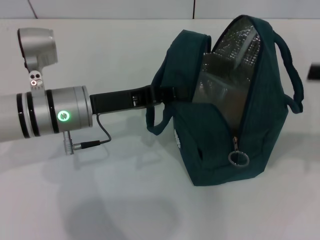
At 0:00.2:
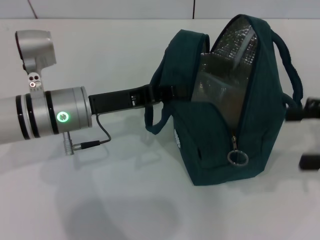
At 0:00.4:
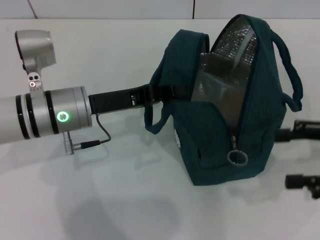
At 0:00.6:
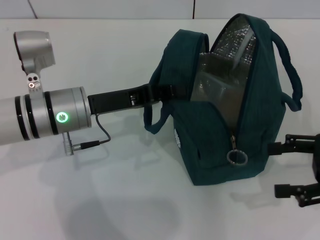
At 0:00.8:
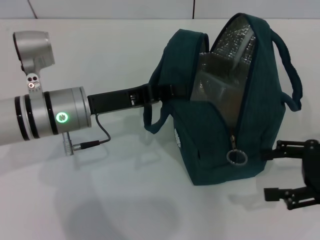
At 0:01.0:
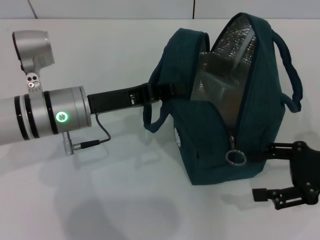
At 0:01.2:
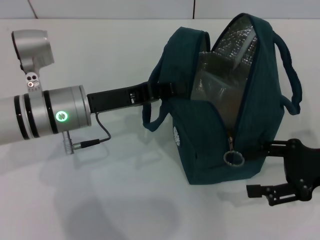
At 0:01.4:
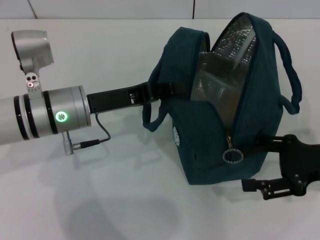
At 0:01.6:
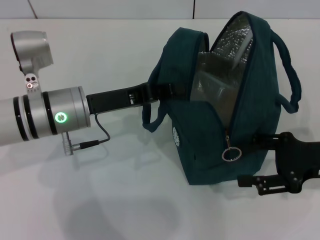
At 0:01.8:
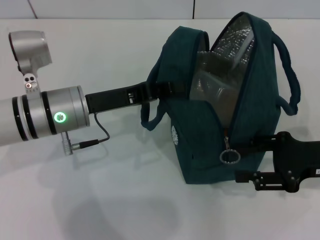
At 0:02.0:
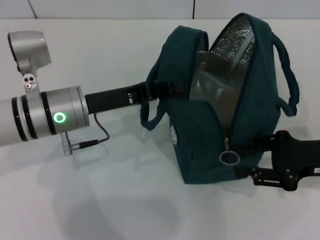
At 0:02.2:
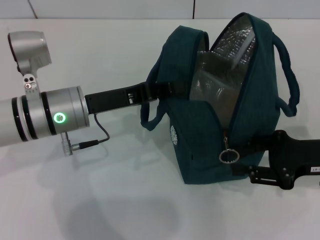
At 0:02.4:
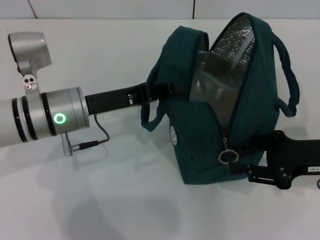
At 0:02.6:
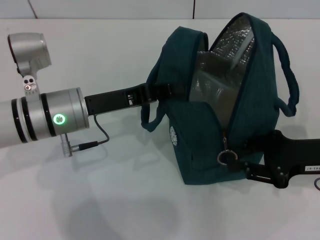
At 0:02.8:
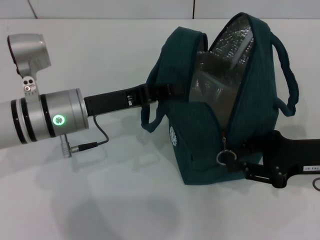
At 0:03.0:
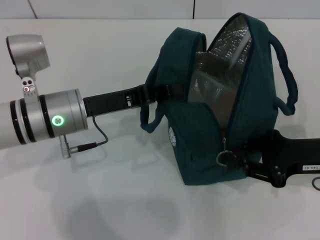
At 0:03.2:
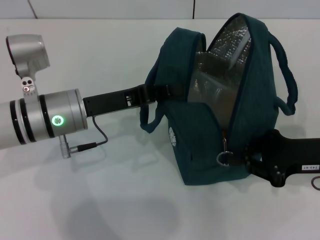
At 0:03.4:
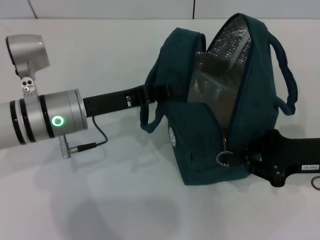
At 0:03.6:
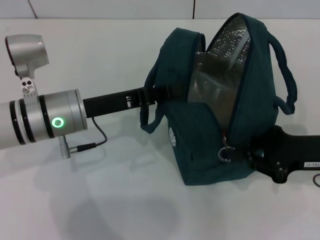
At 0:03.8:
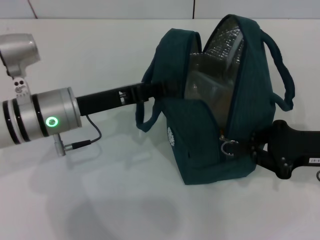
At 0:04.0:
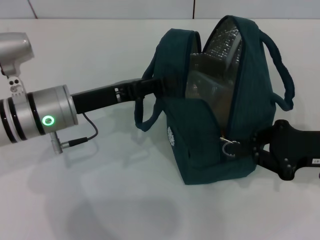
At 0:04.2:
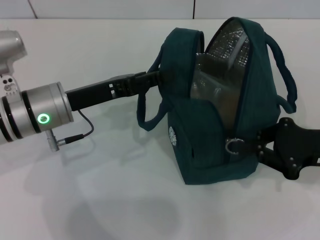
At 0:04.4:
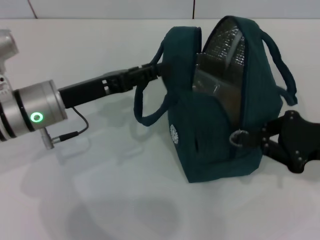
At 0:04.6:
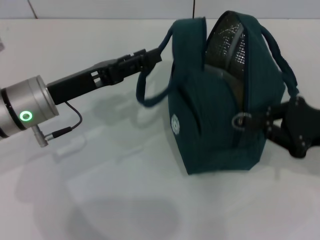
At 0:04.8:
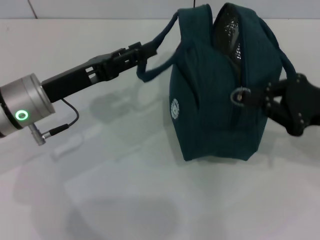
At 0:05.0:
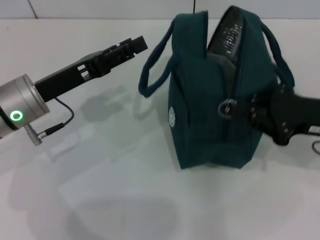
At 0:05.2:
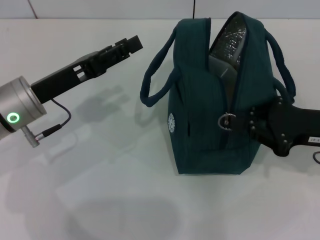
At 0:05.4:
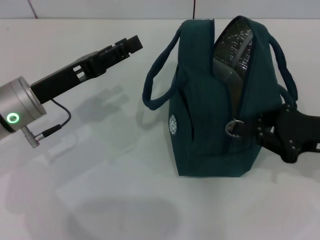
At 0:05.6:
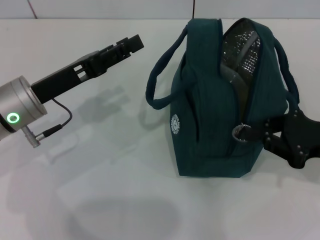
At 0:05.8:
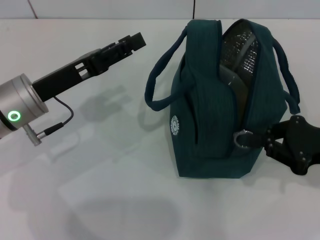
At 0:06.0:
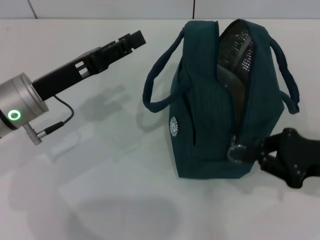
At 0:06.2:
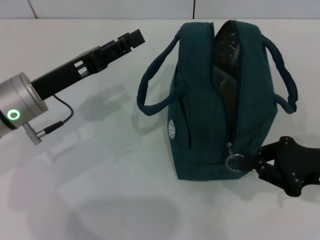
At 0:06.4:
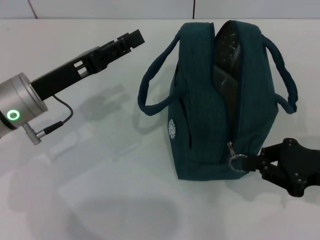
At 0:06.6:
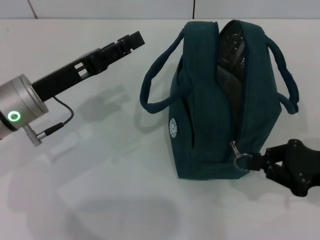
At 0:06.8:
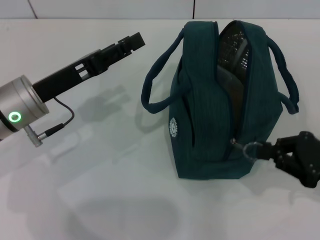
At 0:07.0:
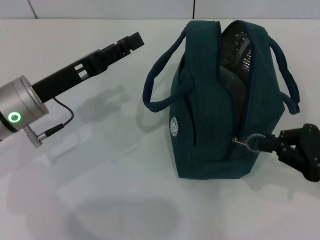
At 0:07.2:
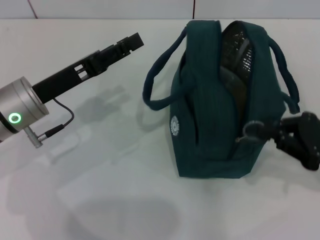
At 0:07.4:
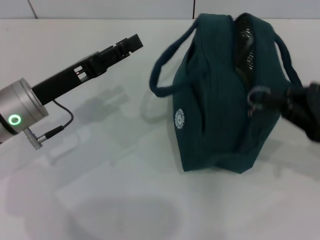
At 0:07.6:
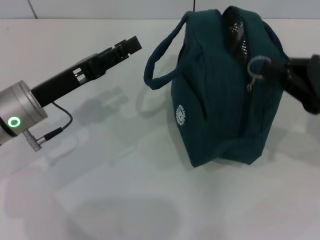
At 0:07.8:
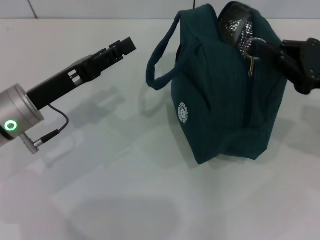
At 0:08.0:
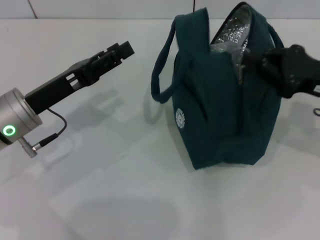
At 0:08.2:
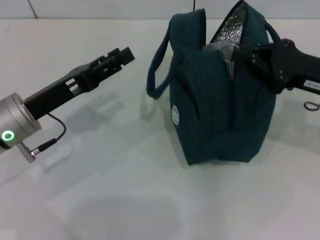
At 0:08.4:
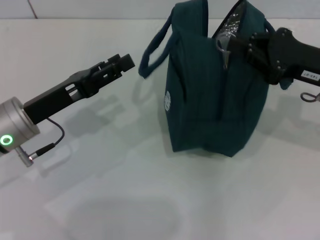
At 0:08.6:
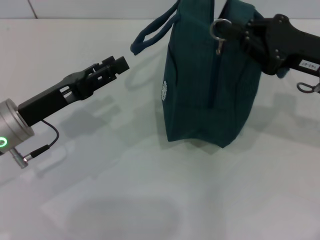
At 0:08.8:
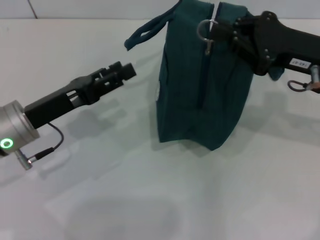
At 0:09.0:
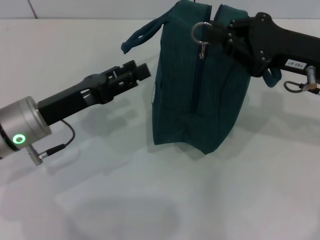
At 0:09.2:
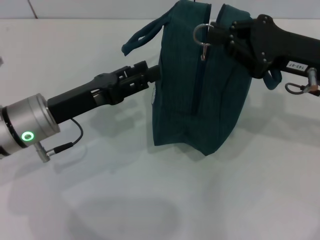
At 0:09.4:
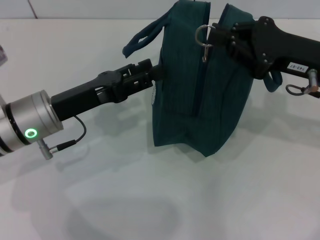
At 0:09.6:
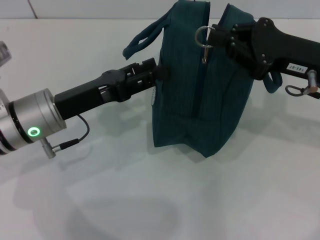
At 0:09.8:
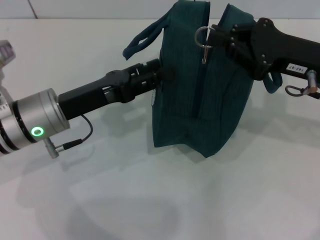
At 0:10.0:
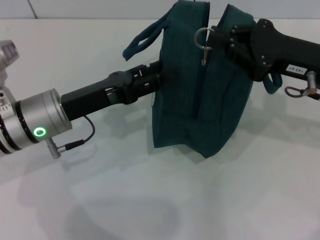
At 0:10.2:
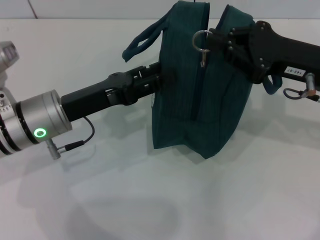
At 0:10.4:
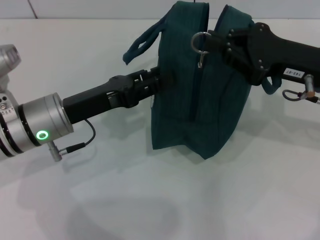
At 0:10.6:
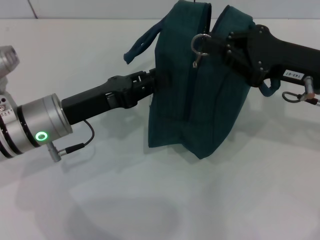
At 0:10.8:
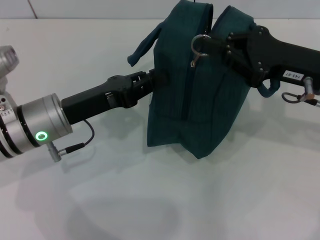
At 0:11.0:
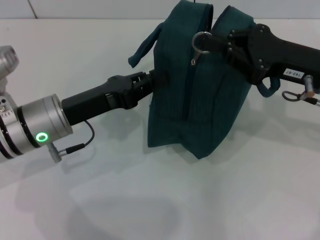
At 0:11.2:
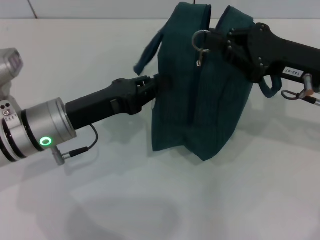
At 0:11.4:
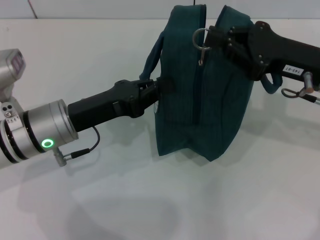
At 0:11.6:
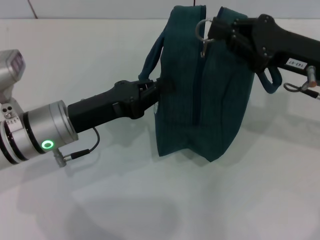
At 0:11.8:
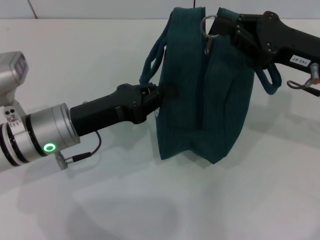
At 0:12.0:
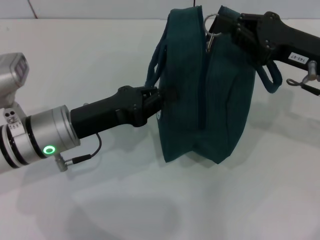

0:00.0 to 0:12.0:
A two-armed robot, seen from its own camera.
Step, 0:00.0 to 0:04.2: Hold the lunch bag with your left hand.
0:00.0 to 0:01.6: The right gripper heads downward and to the left, covering some 10 cm.
0:01.6 to 0:03.0: The right gripper closes up.
0:03.0 to 0:04.4: The left gripper opens its fingers.
0:07.6 to 0:09.0: The right gripper is displaced to the left and forward by approximately 10 cm.
0:09.0 to 0:10.4: The grippers move only a little.
0:10.4 to 0:12.0: The left gripper closes up.

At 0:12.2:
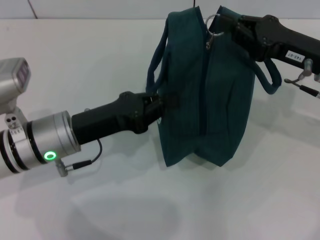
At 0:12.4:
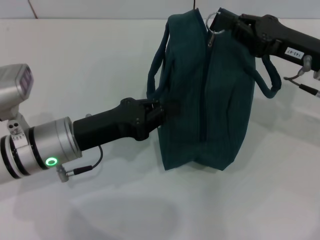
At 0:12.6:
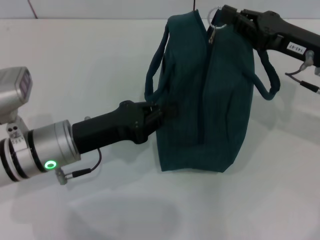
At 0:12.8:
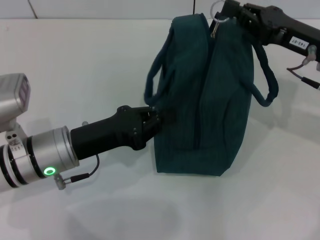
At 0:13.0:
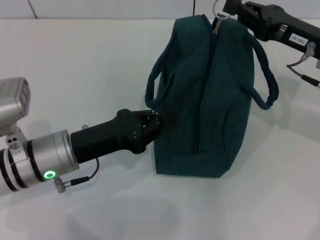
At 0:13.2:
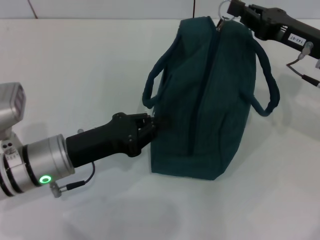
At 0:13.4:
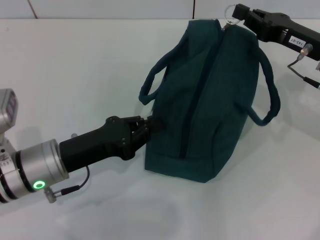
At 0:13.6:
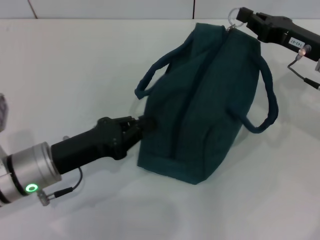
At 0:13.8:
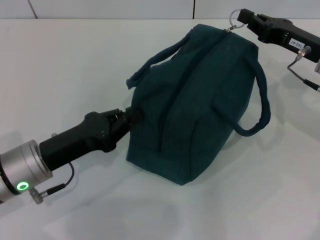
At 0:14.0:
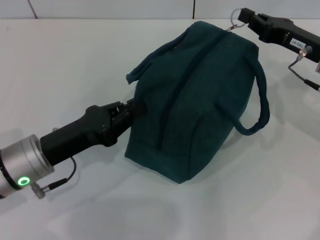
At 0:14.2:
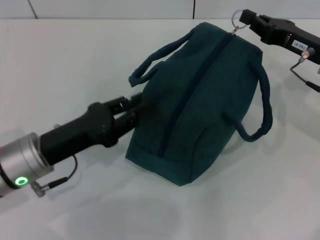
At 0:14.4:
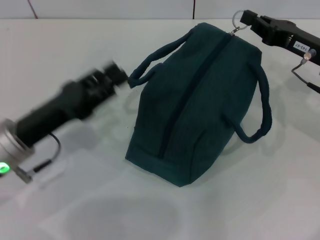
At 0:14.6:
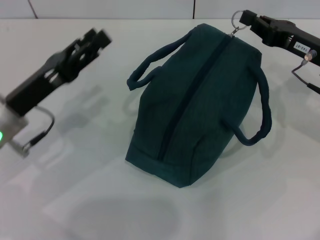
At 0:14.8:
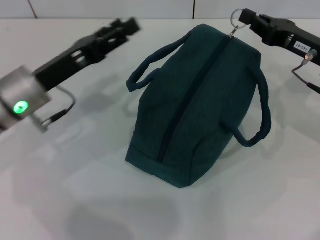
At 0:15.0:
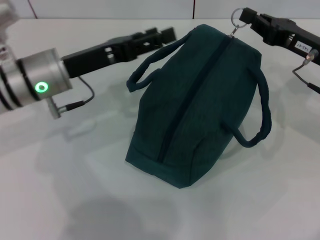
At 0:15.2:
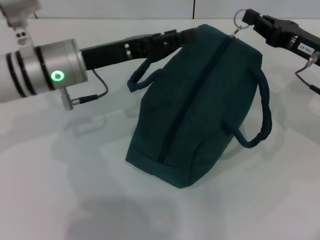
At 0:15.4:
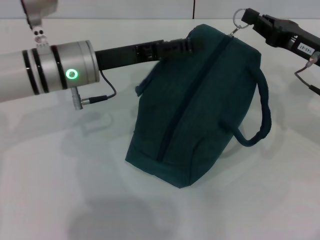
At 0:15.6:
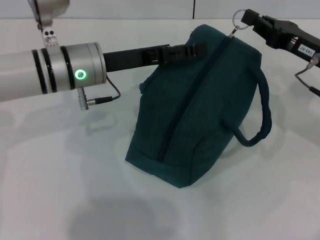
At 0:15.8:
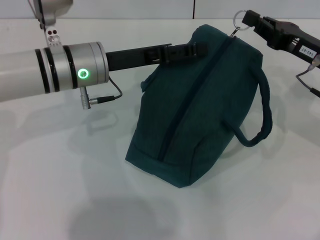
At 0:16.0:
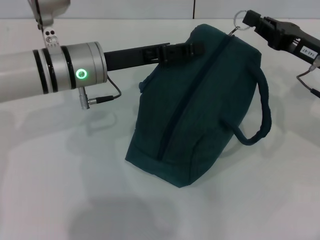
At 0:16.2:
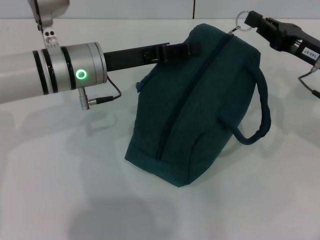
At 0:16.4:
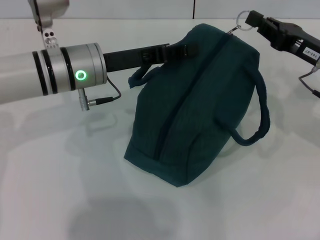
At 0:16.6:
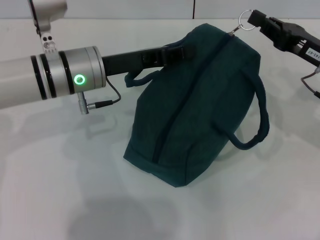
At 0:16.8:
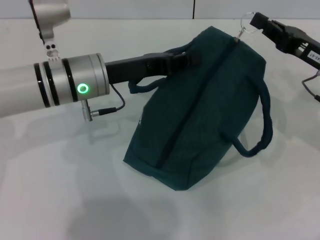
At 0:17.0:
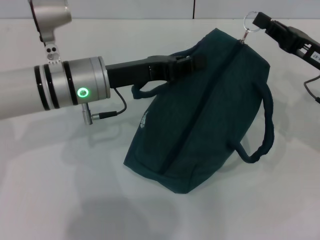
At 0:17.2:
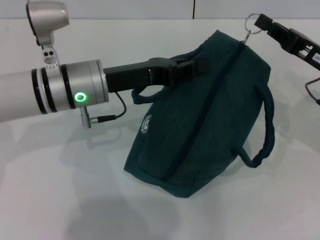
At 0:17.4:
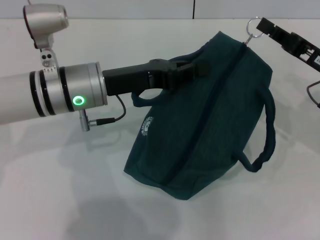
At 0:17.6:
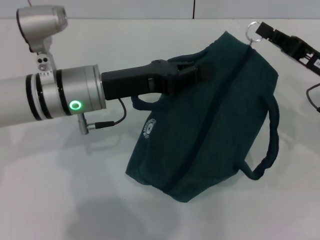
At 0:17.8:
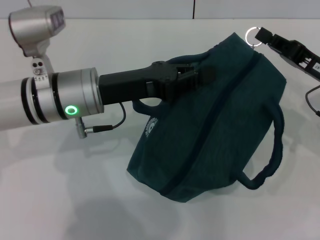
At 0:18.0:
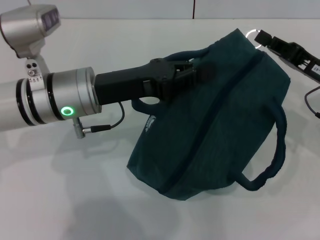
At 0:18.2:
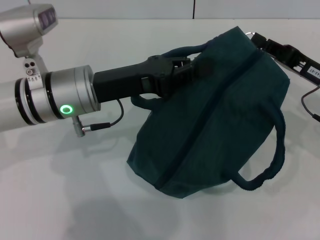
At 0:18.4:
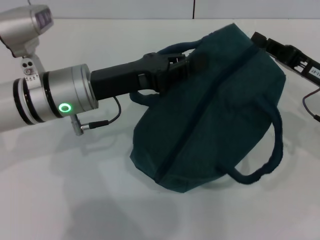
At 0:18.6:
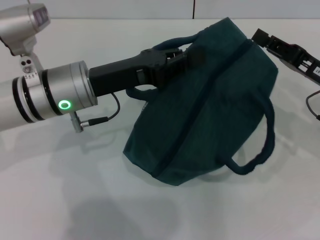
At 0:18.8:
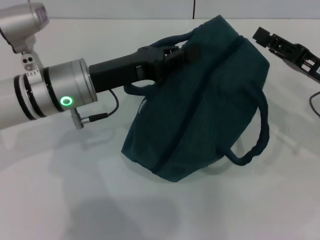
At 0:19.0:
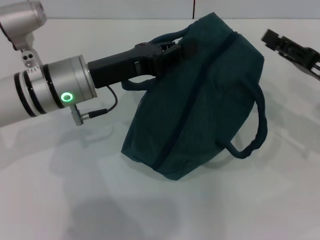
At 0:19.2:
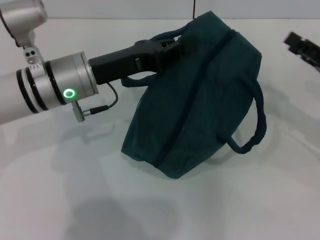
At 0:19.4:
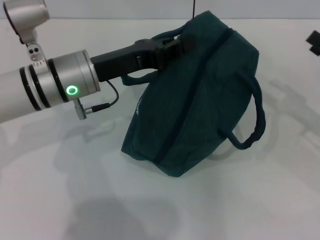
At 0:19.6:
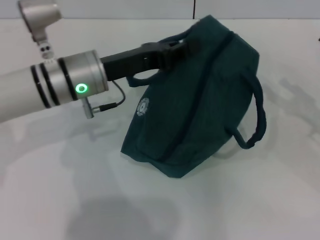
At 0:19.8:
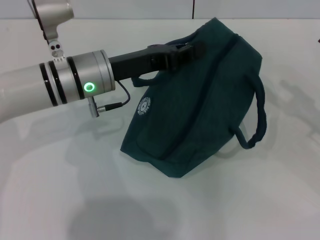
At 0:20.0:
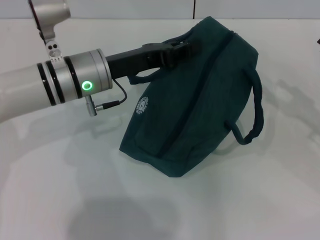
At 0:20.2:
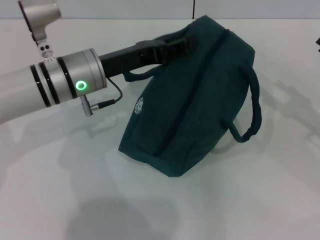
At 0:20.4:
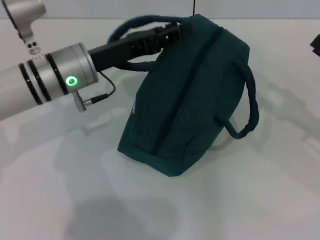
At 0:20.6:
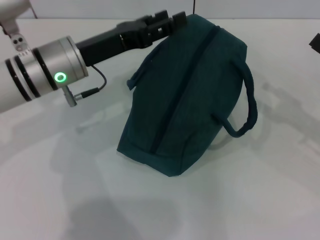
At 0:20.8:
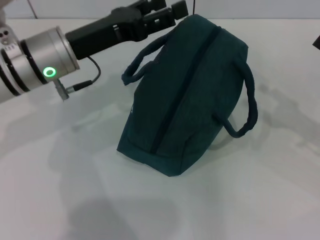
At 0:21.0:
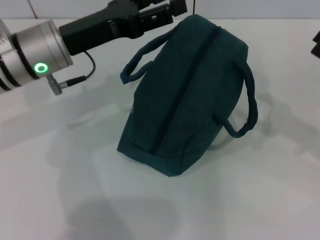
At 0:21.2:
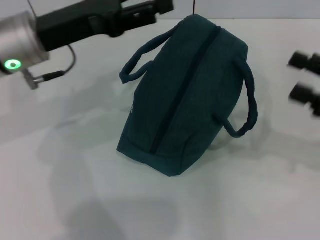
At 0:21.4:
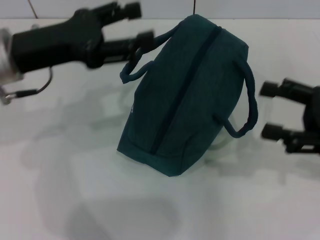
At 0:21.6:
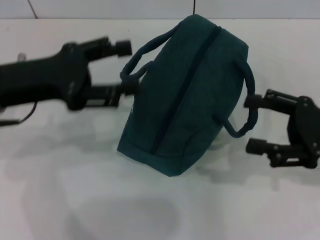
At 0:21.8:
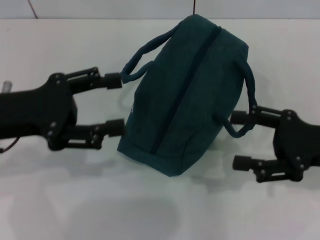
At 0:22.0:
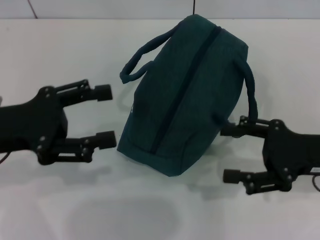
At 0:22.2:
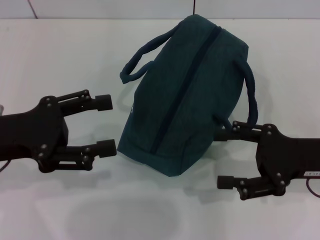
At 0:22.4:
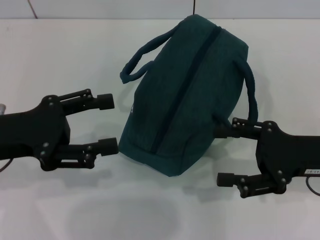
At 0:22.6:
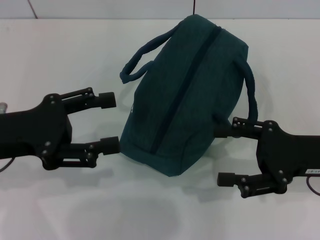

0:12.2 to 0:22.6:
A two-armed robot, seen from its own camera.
Step, 0:12.2 to 0:18.4: Zip up the lunch bag with your right hand.
Step, 0:18.8 to 0:20.4: Hold the lunch bag with your left hand.
0:12.2 to 0:13.6: The left gripper ends up some 5 cm from where it was.
0:13.6 to 0:15.2: The left gripper is displaced forward and upward by some 15 cm, and opens its fingers.
0:15.2 to 0:16.6: The left gripper closes its fingers.
0:18.2 to 0:19.6: The right gripper travels to the right by about 10 cm, and opens its fingers.
0:19.6 to 0:21.2: The right gripper ends up approximately 5 cm from where it was. The left gripper goes roughly 10 cm upward and to the left, and opens its fingers.
0:21.2 to 0:22.6: The left gripper moves backward and to the left, approximately 10 cm; the right gripper travels to the left by roughly 5 cm.
